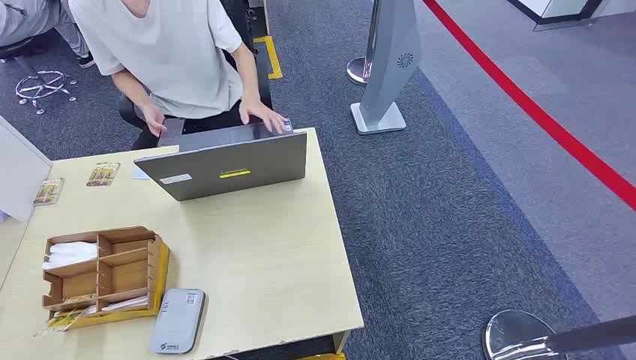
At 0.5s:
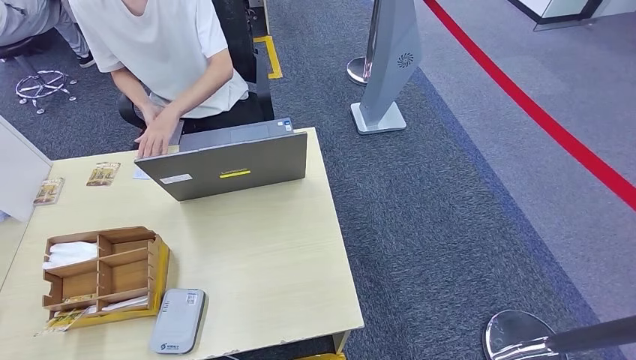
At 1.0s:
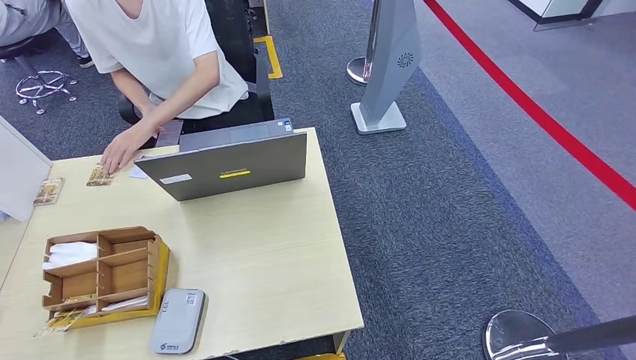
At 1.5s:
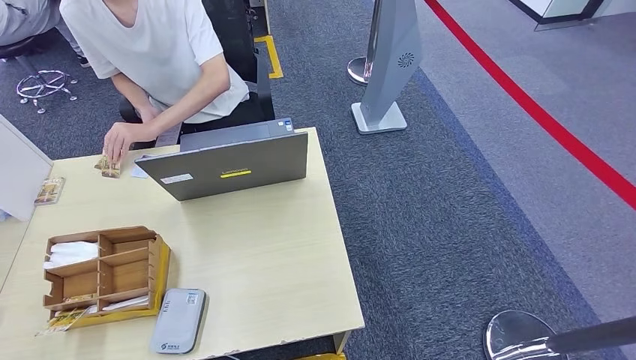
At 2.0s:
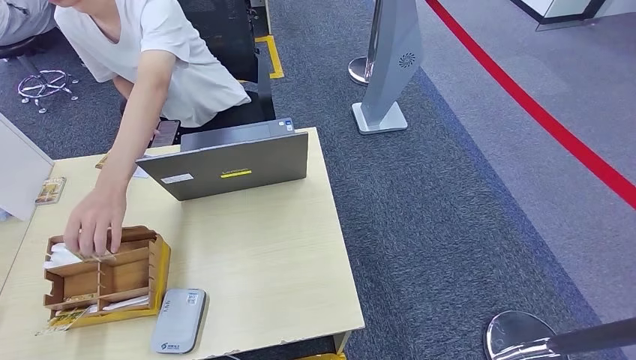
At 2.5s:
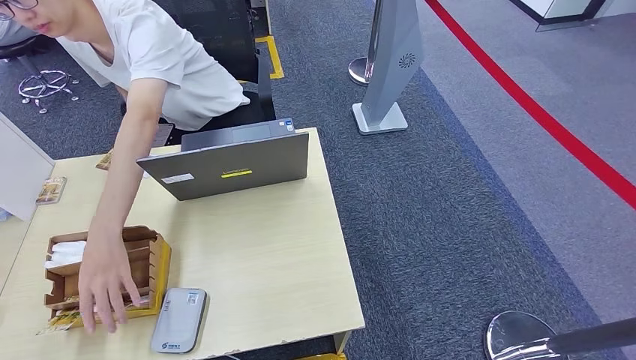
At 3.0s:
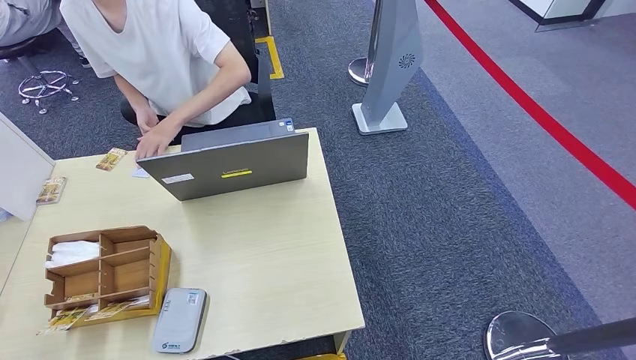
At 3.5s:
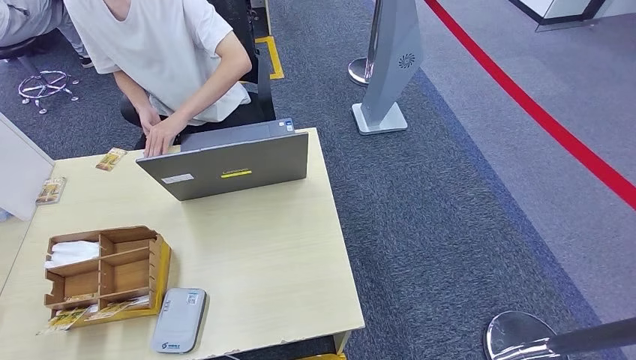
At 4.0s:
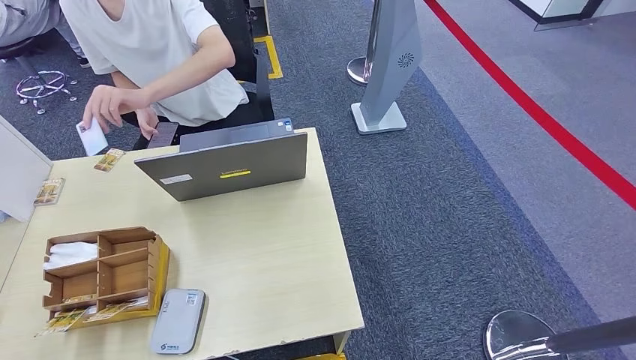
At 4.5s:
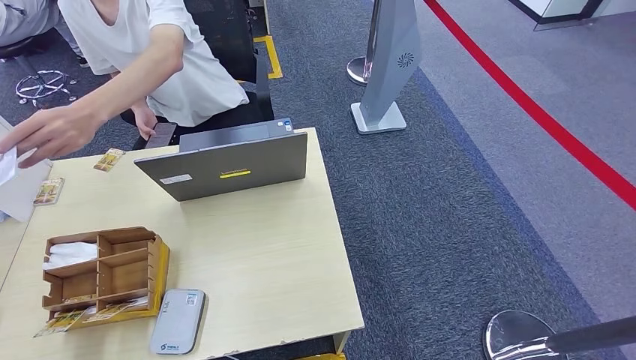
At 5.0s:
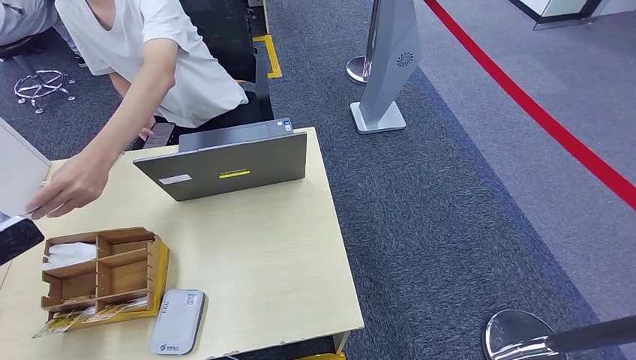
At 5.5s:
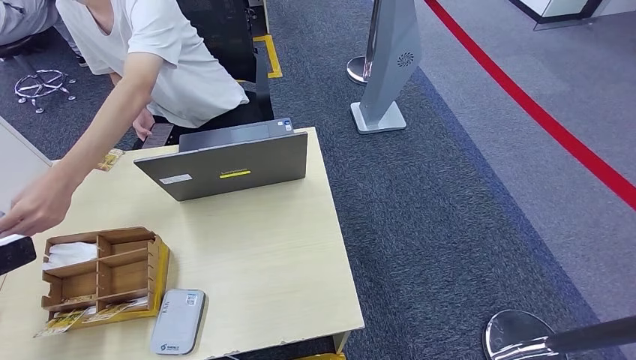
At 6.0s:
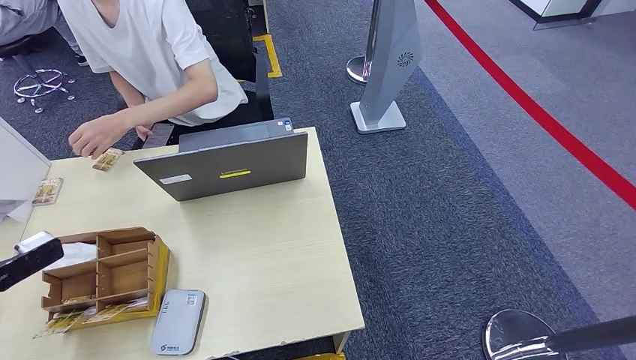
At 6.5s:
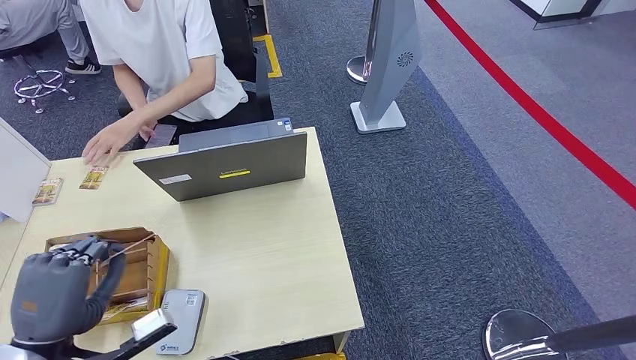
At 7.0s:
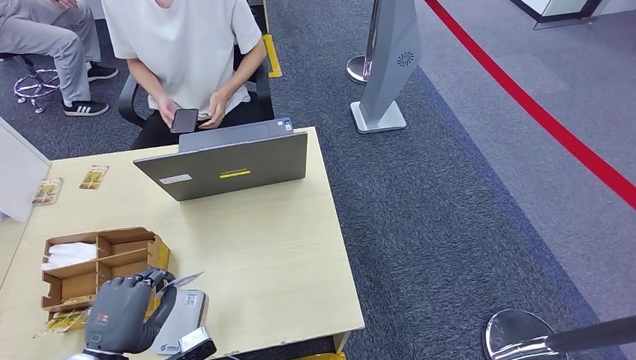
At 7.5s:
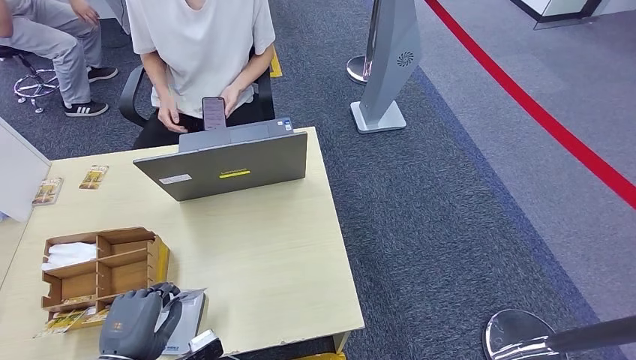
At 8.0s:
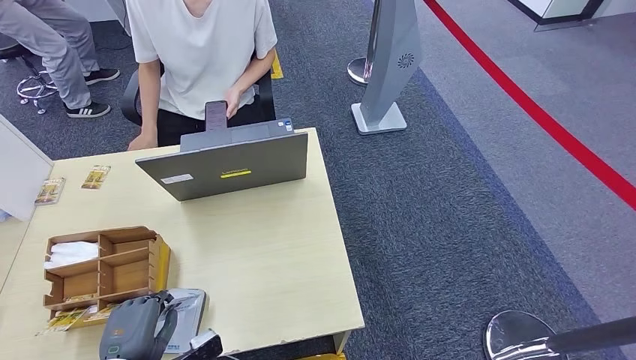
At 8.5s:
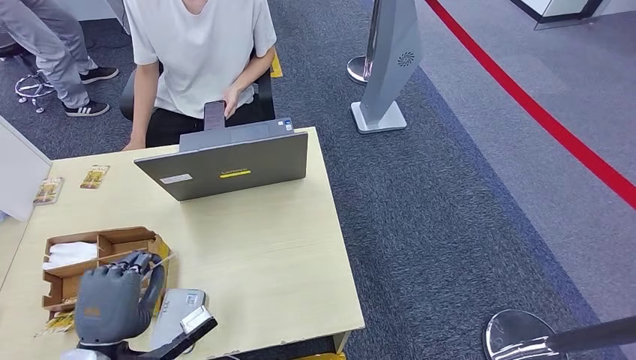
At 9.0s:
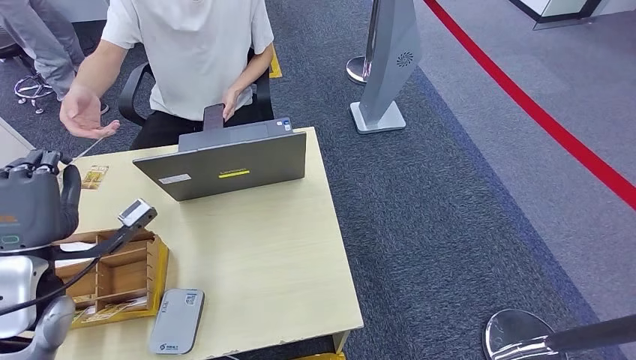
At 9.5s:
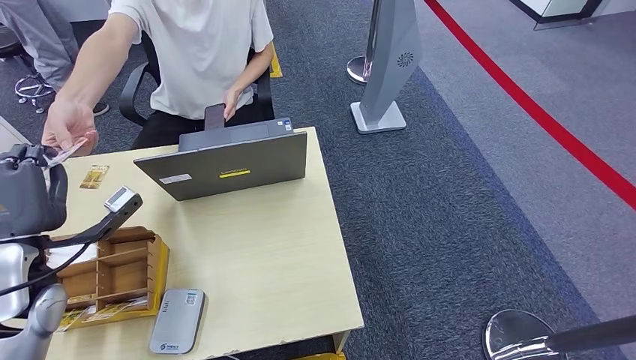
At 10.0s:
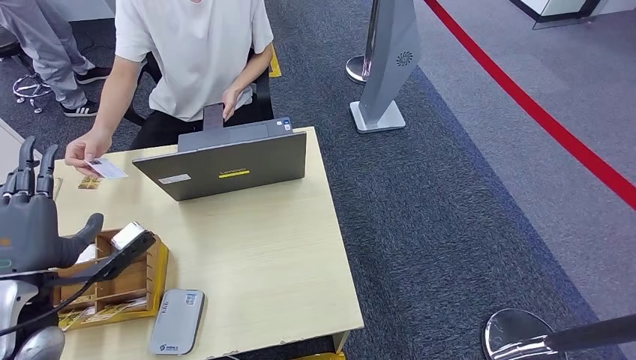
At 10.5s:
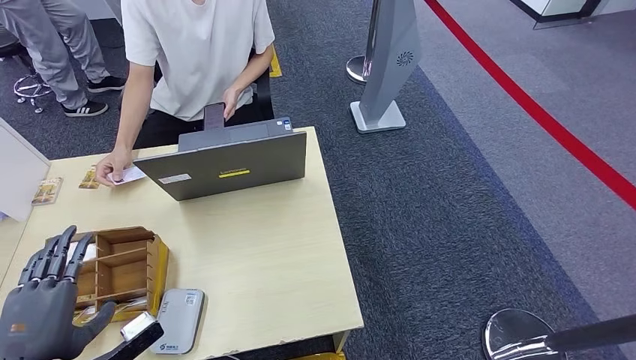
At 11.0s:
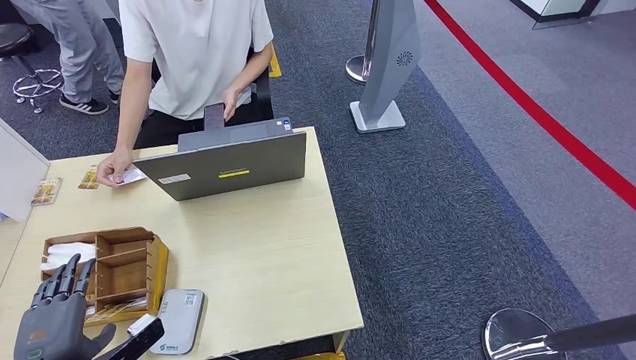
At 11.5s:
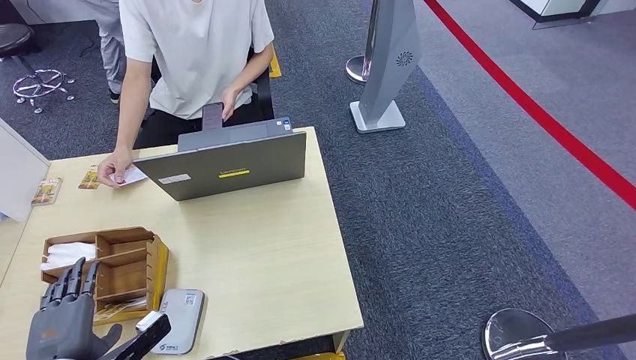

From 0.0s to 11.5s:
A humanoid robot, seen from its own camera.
Step, from 0.0s to 6.5s: Take the ID card from the person's hand.
Step, from 7.0s to 8.0s: Place the ID card on the card reader.
Step, from 8.5s to 10.5s: Hand the ID card to the person.
From 2.0s to 4.0s: The left hand travels upward, to the left and forward by about 35 cm.
From 4.0s to 6.0s: The left hand moves forward and upward, about 10 cm.
From 6.0s to 7.5s: The left hand heads to the right, downward and backward, covering approximately 25 cm.
From 7.5s to 9.5s: The left hand travels forward, upward and to the left by approximately 20 cm.
From 9.5s to 11.5s: The left hand heads backward and downward, covering some 20 cm.

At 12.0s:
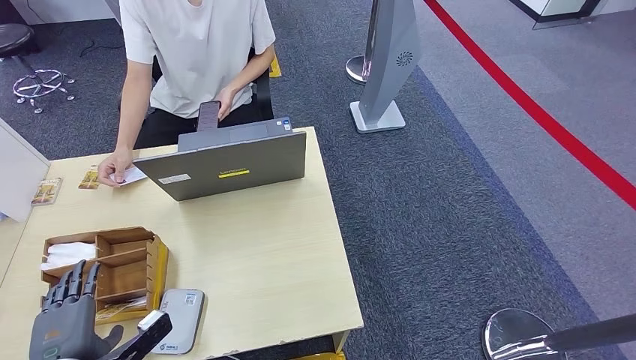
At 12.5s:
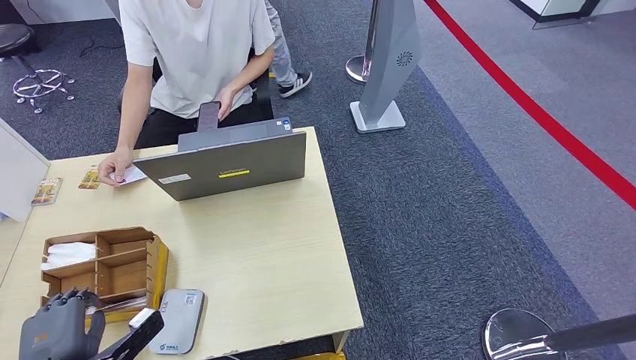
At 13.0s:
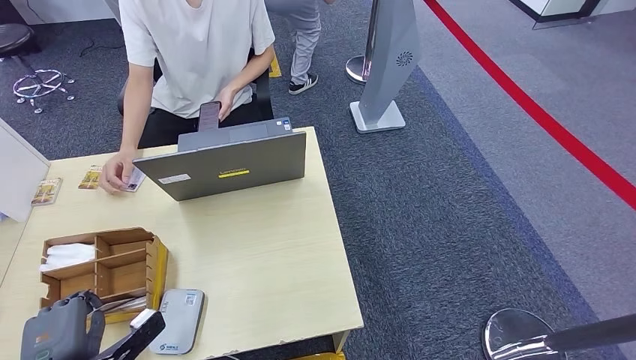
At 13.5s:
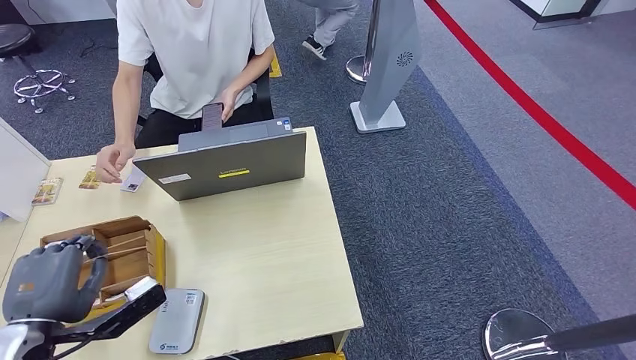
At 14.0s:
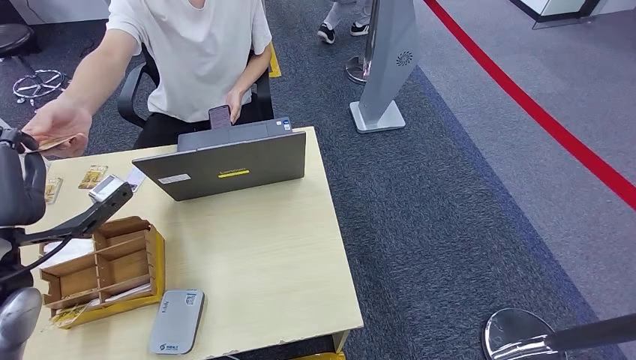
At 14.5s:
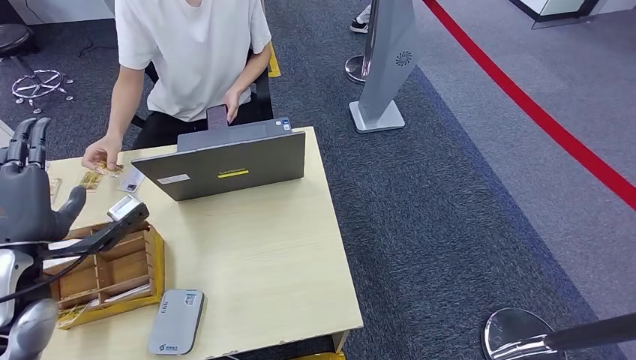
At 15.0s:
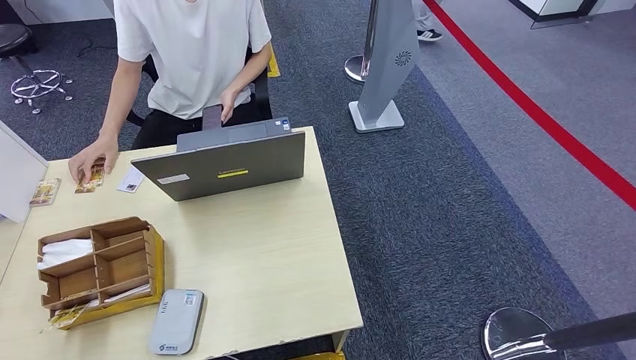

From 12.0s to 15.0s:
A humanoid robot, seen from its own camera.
Step, from 13.5s to 15.0s: Hand the room key to the person.
From 12.0s to 13.5s: The left hand is displaced upward by roughly 10 cm.
From 13.5s to 15.0s: The left hand shifts about 15 cm to the left and backward.

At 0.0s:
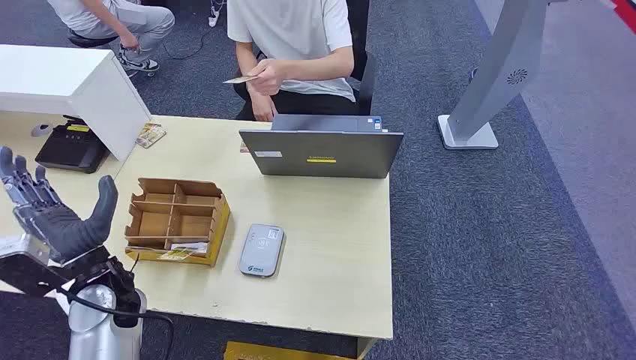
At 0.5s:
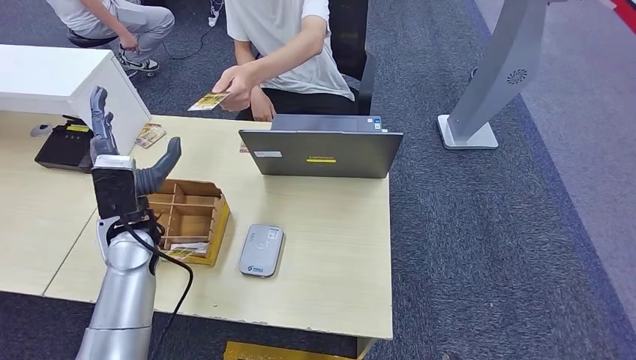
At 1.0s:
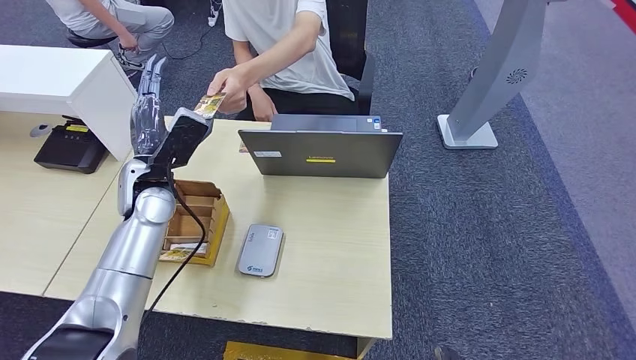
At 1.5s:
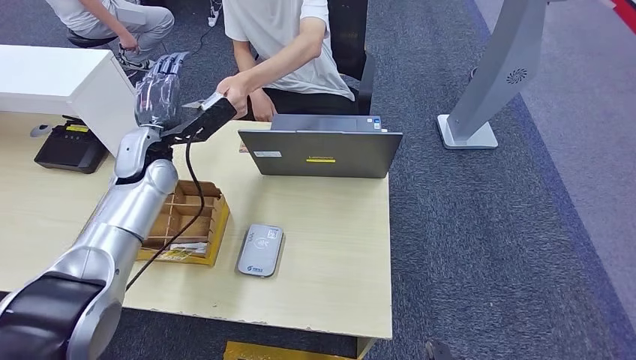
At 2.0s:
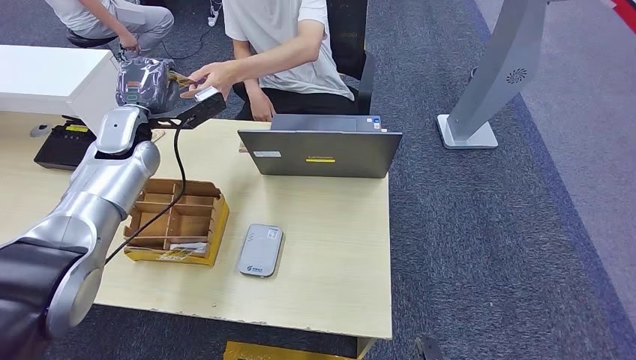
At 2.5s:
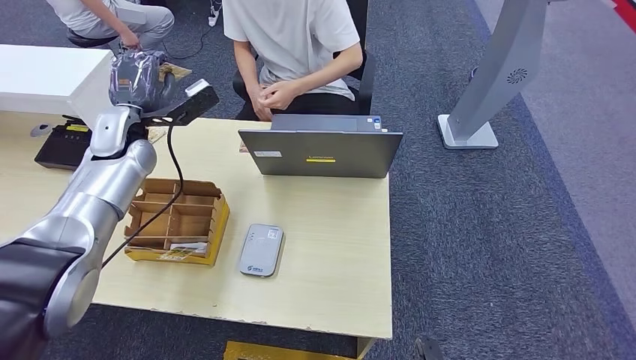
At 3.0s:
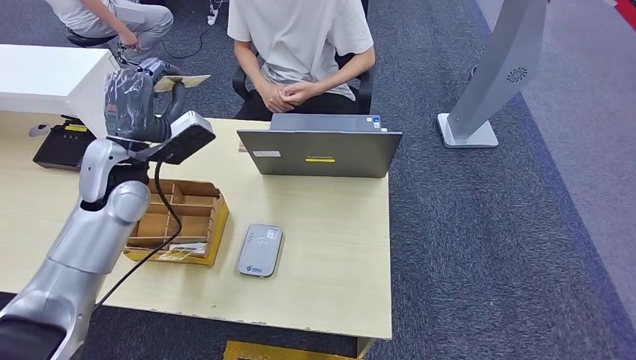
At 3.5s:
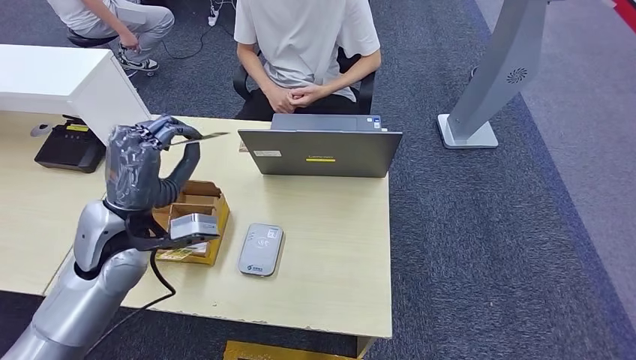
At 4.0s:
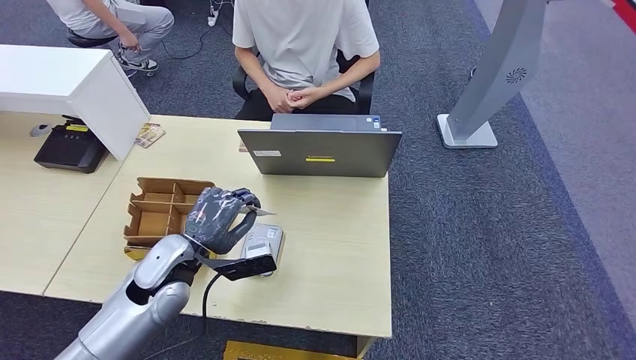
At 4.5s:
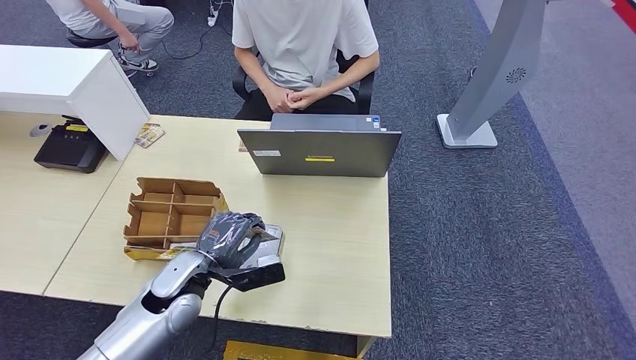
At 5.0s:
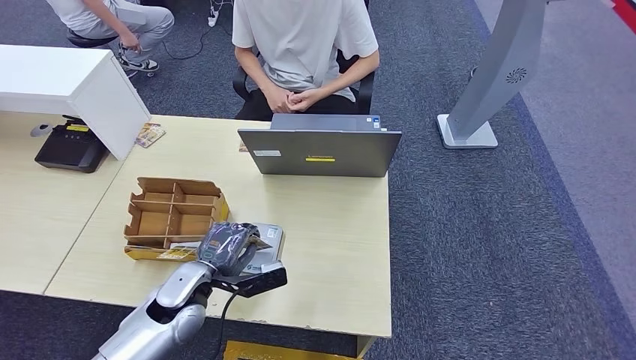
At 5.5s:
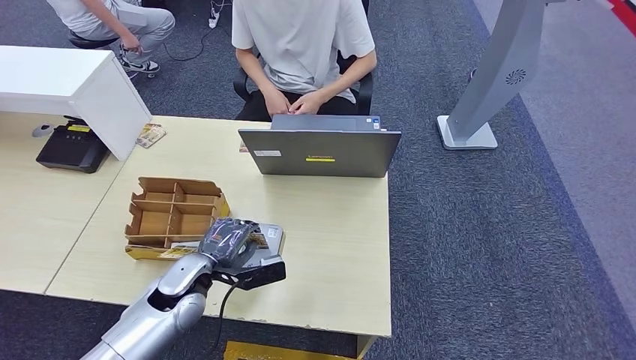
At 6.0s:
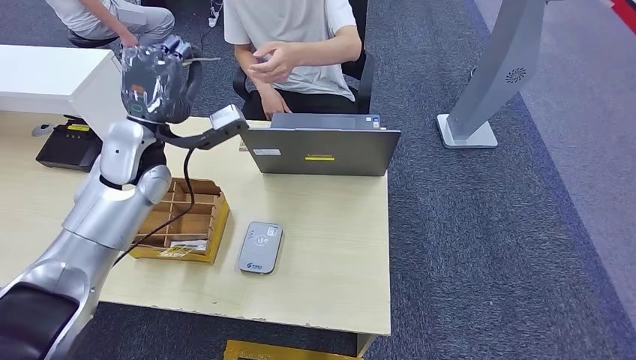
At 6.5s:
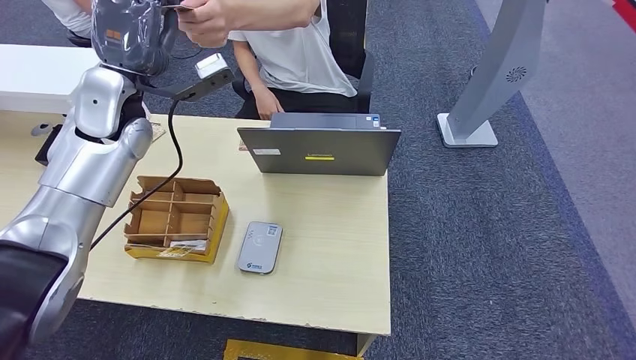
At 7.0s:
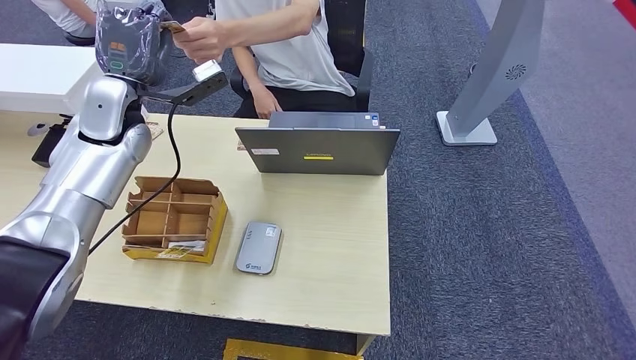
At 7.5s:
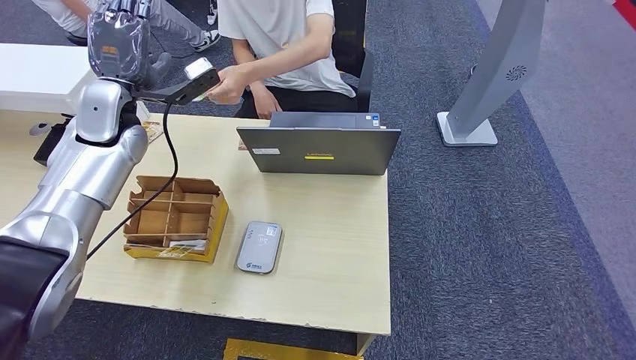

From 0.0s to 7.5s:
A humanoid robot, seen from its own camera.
Step, from 0.0s to 2.5s: Take the ID card from the person's hand.
Step, from 3.0s to 4.5s: Place the ID card on the card reader.
Step, from 5.0s to 7.0s: Hand the ID card to the person.
From 4.0s to 5.5s: The left hand heads downward, covering roughly 5 cm.
